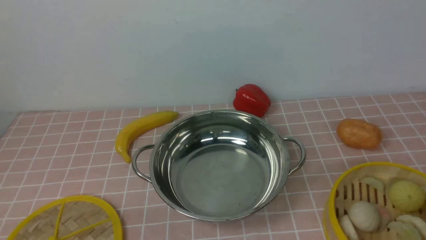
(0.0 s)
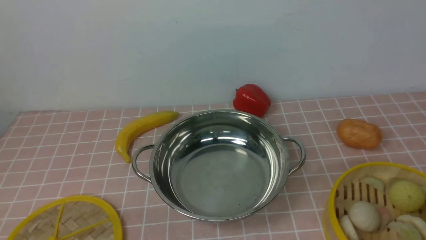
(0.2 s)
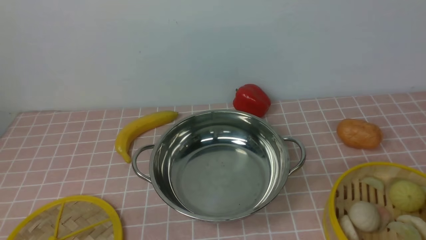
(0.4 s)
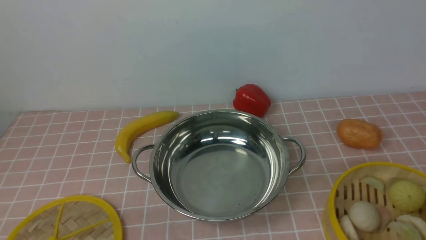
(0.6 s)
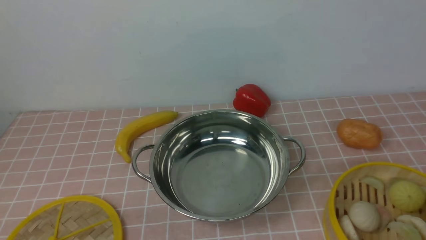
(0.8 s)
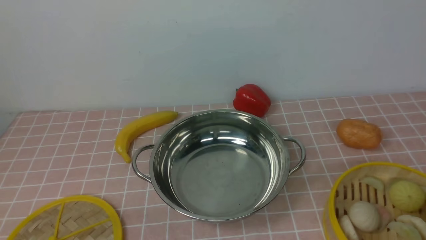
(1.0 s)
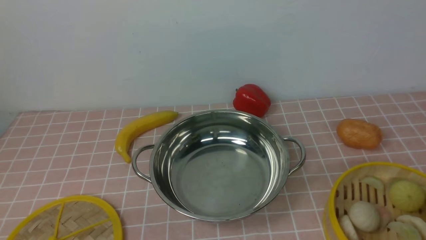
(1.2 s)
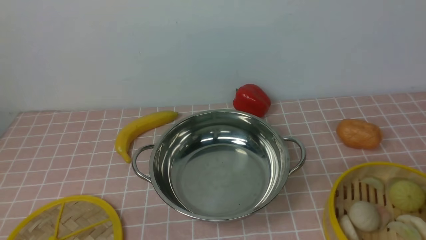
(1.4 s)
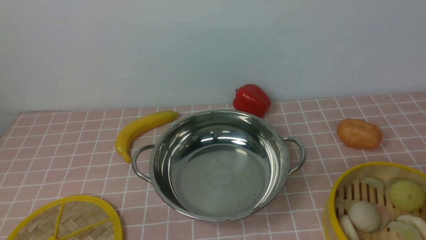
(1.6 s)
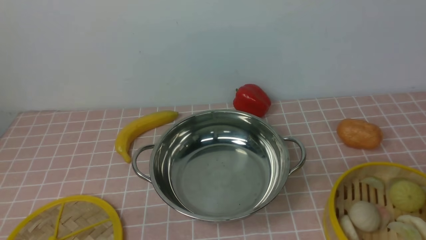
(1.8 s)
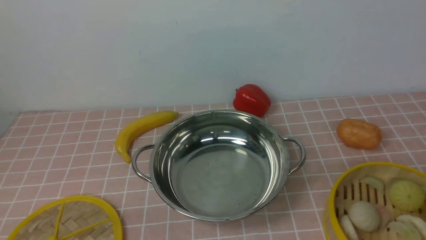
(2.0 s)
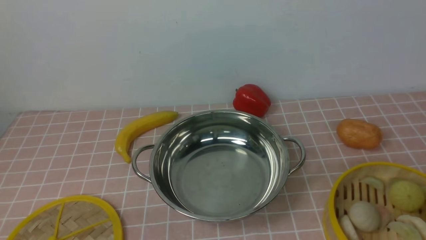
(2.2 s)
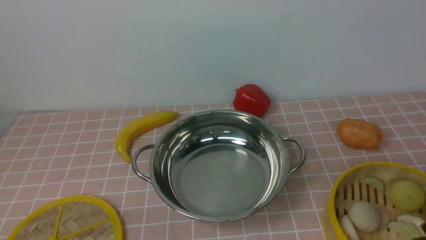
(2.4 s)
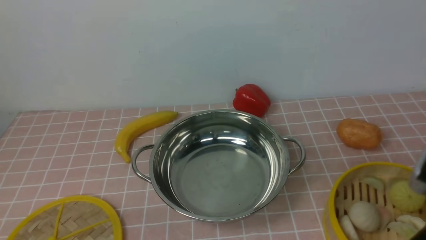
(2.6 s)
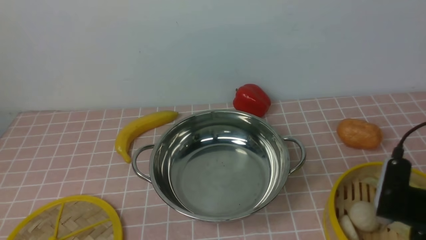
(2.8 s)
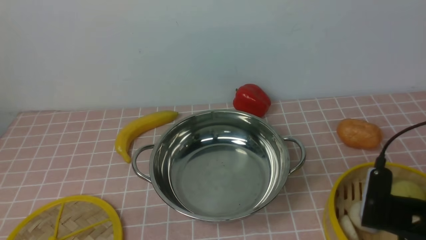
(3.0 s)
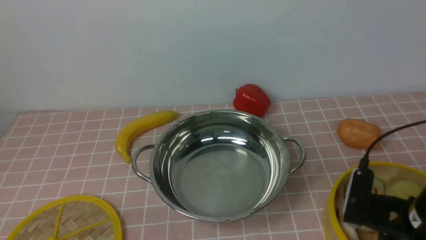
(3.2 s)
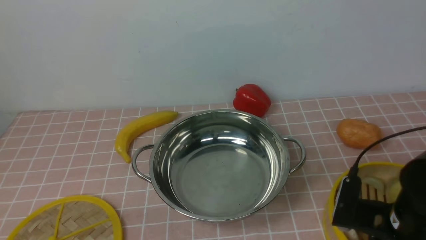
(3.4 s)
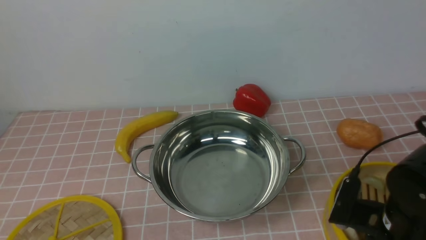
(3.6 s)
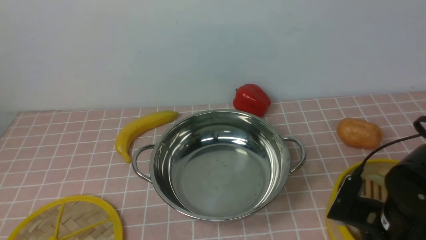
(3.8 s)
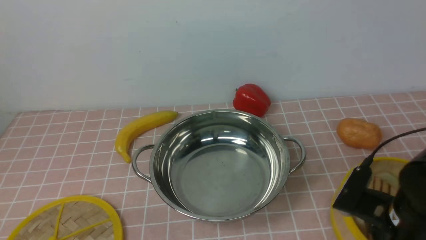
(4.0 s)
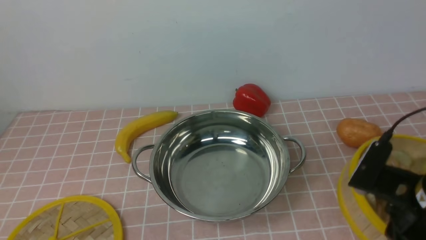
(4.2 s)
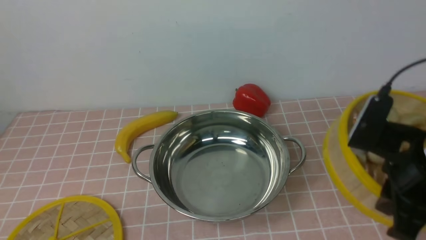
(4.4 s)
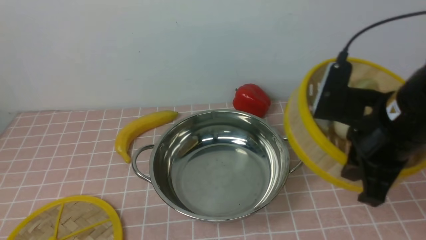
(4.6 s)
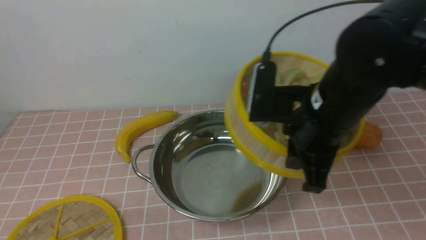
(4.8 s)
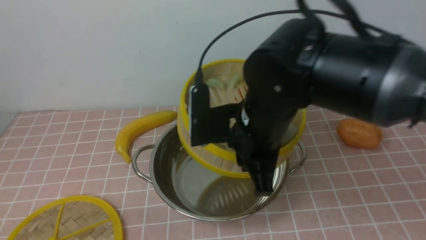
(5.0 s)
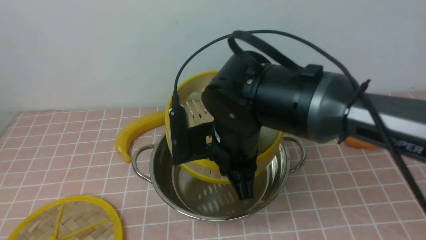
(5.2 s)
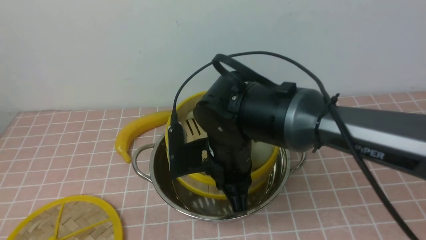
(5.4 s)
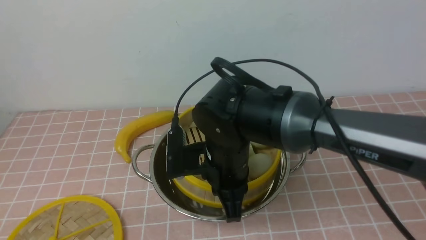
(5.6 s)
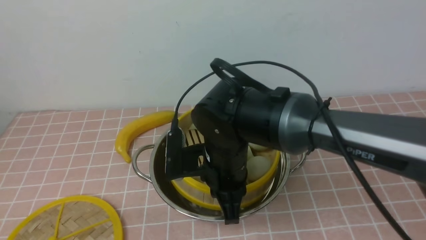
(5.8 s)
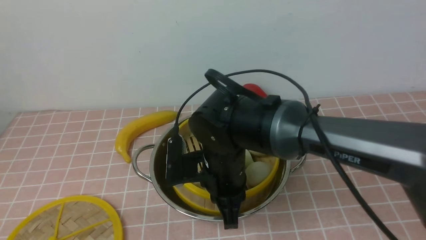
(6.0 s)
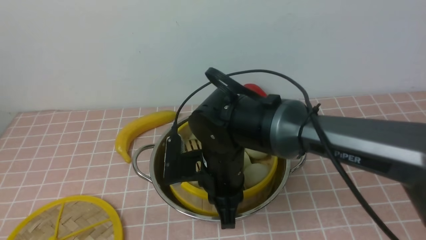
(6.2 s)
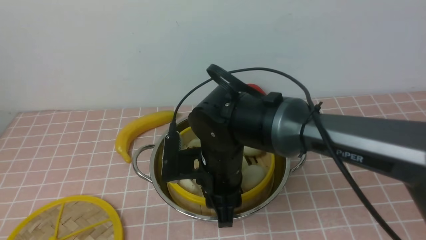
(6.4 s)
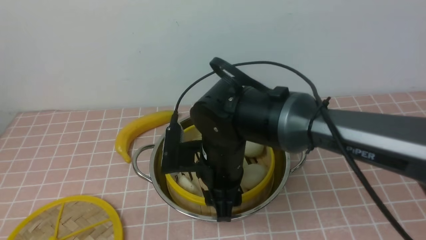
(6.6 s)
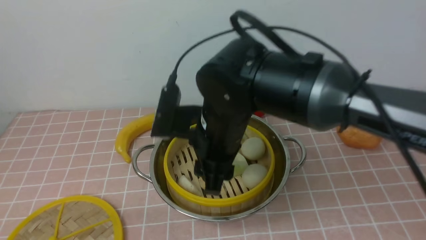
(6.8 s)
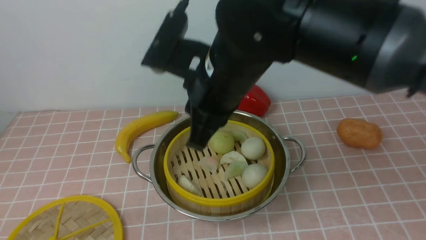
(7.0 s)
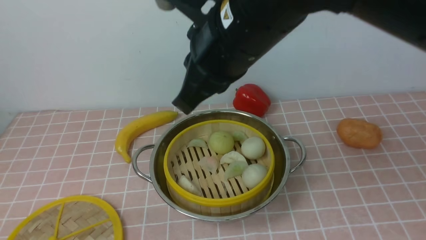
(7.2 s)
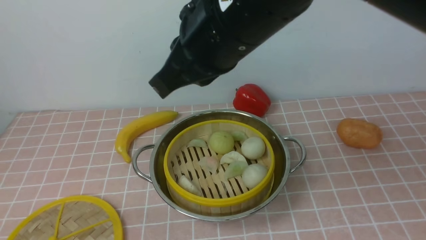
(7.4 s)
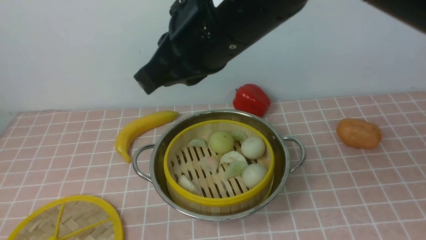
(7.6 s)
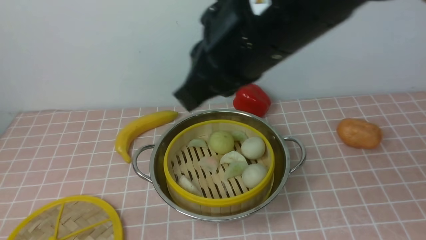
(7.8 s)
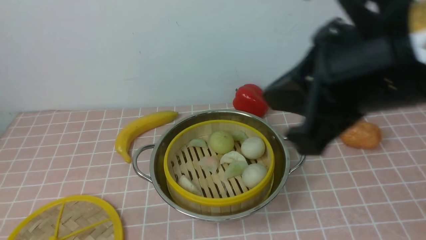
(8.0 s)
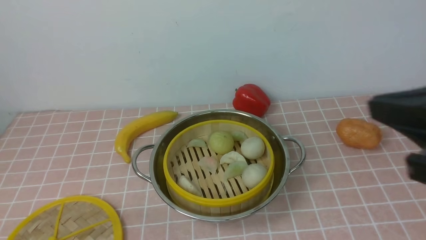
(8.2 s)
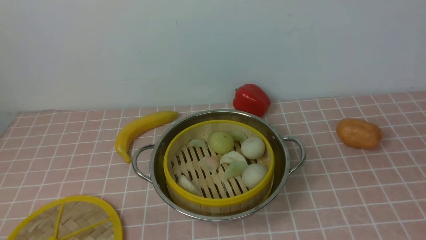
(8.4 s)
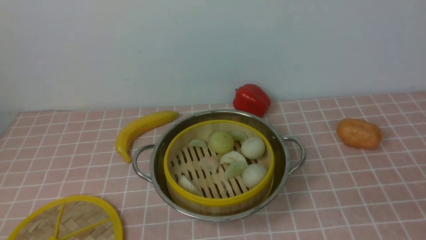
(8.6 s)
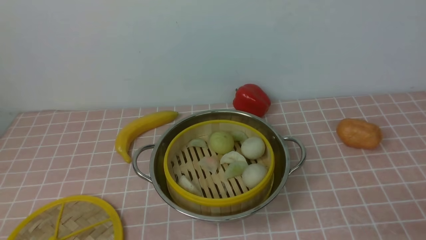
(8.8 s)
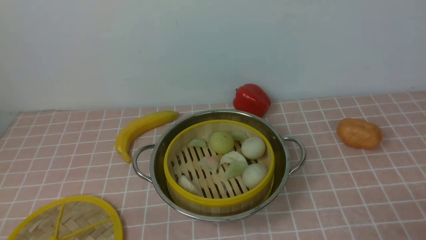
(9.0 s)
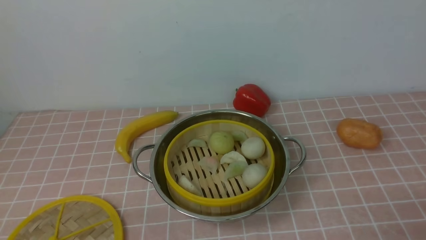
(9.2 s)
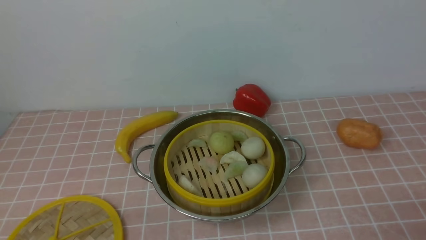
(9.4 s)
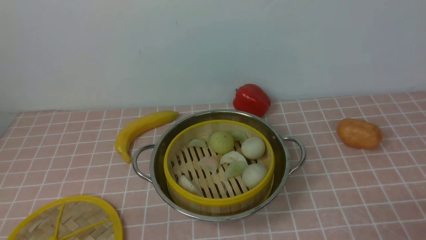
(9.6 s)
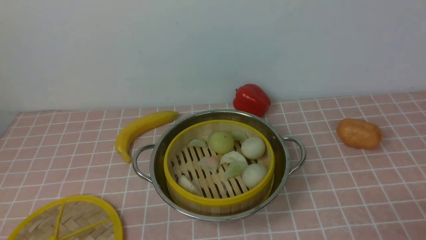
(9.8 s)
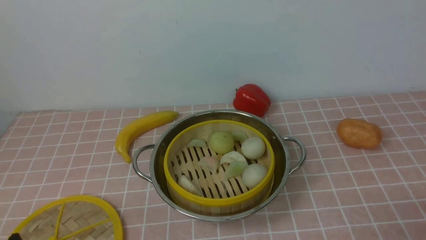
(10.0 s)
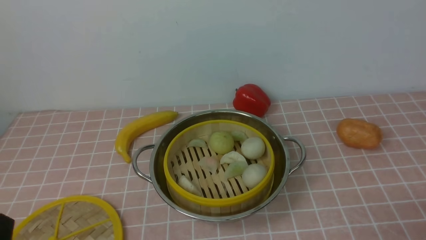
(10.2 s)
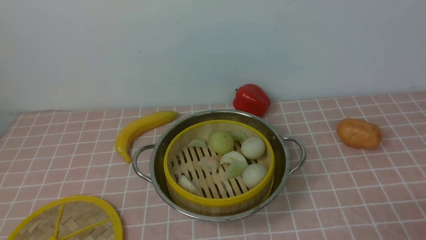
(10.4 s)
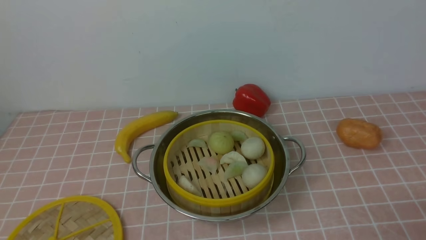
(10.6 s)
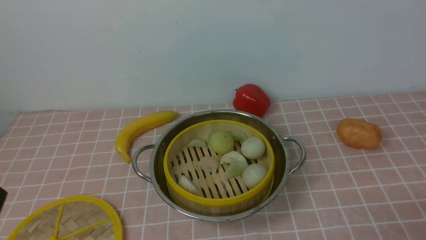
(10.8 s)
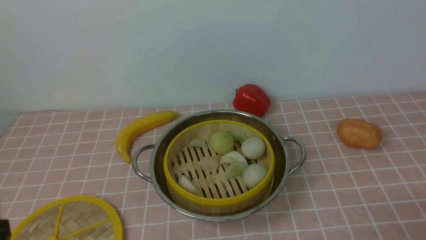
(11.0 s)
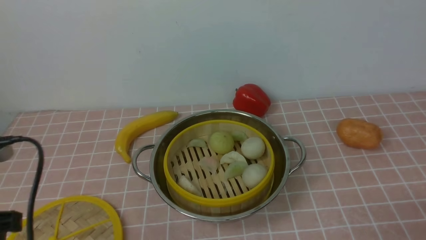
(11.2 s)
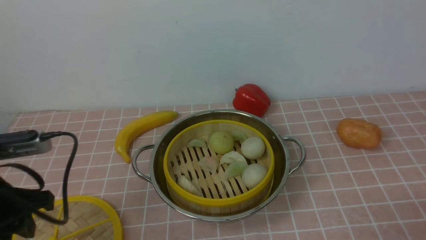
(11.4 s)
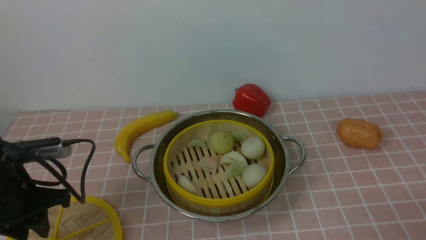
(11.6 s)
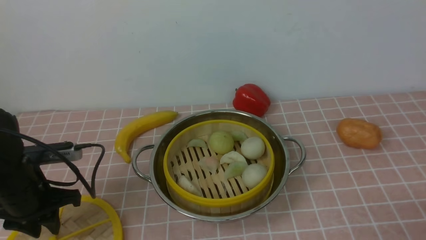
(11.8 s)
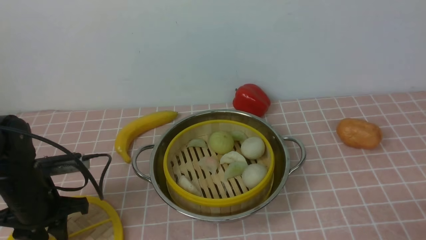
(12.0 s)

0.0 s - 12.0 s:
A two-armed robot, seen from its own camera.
Task of the whole recording: place the steamer in the pot on the pink tablecloth, and put the lid on the steamer.
Step, 0.0 s - 4.0 s: use the right arm to lift the steamer closest to it.
Step, 4.2 s - 6.6 s: use the right arm to put the steamer into the iron steamer pot in the middle.
1.6 s - 3.0 s: The right gripper goes approximately 15 cm forward, to the left and downward.
3.0 s - 4.4 s: The right gripper goes some 5 cm upward, and closes.
4.4 s - 6.0 s: The right gripper goes approximately 20 cm to the left.
6.0 s - 7.6 s: The right gripper heads upward, covering approximately 20 cm, and opens, then closes again.
7.6 s - 9.0 s: The right gripper heads to the right, downward and backward, covering some 40 cm, and opens its fingers.
10.4 s - 12.0 s: The left gripper moves forward, approximately 20 cm.

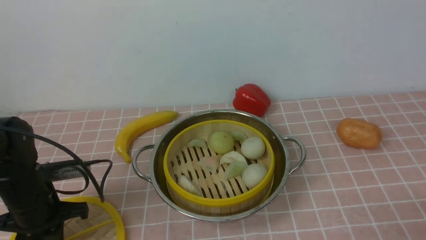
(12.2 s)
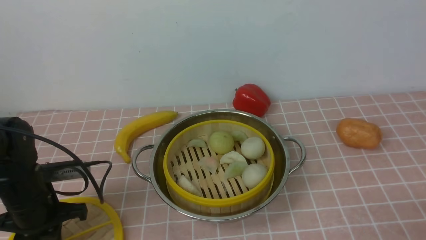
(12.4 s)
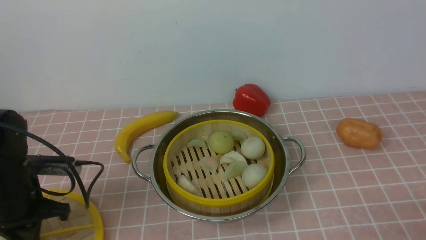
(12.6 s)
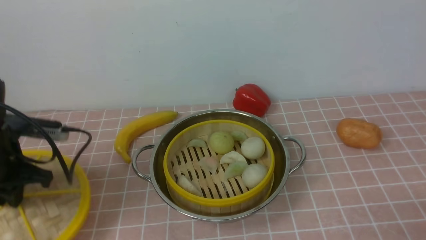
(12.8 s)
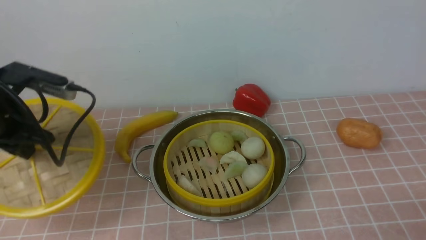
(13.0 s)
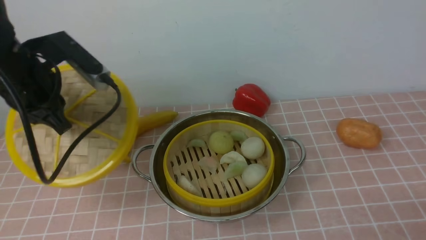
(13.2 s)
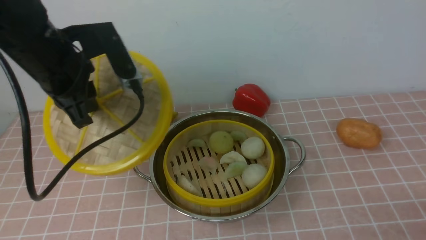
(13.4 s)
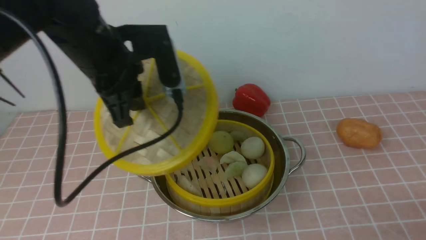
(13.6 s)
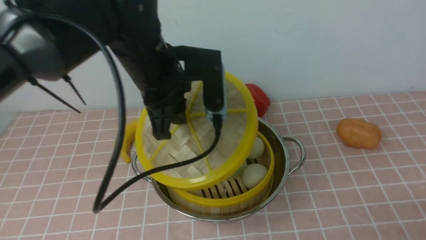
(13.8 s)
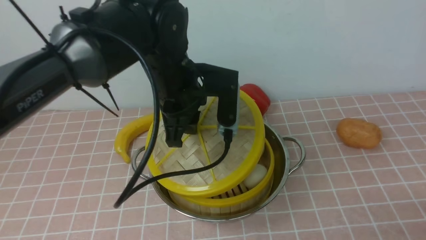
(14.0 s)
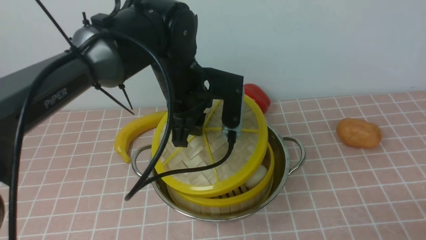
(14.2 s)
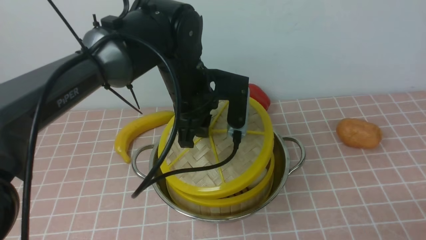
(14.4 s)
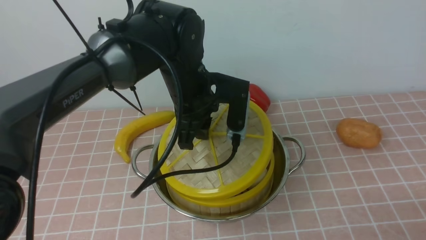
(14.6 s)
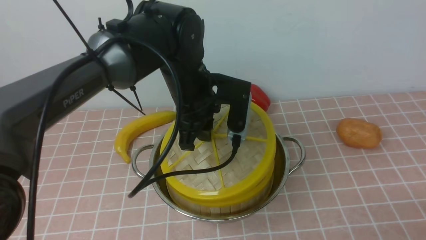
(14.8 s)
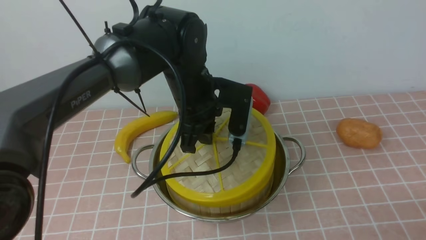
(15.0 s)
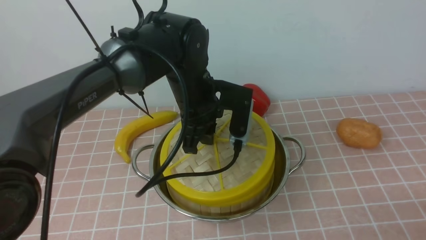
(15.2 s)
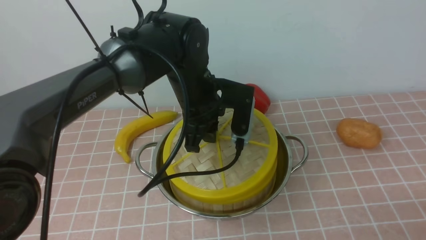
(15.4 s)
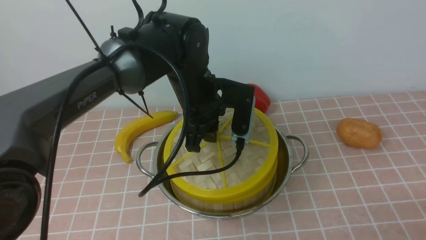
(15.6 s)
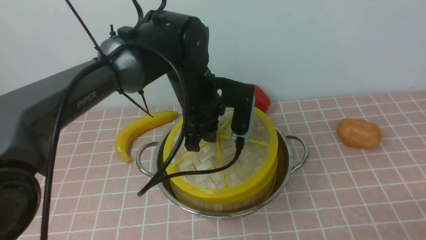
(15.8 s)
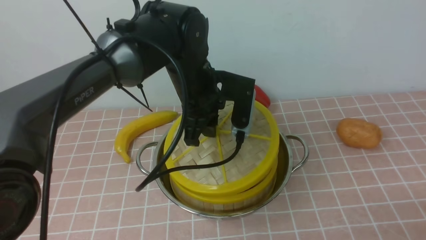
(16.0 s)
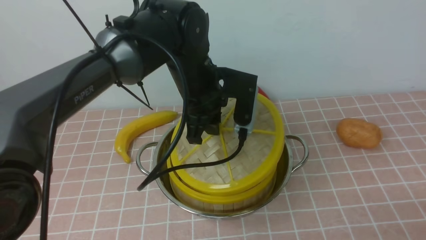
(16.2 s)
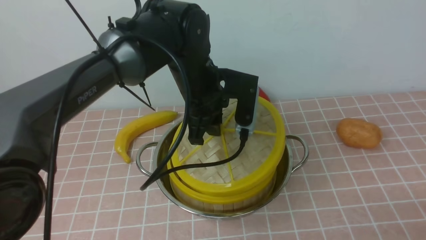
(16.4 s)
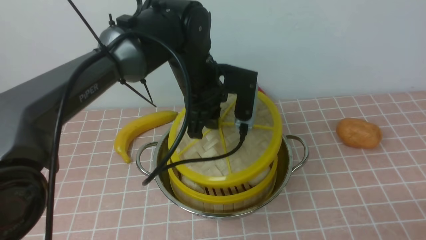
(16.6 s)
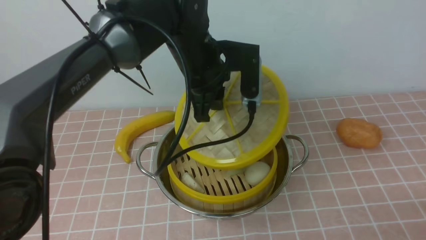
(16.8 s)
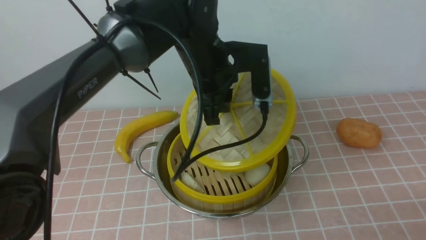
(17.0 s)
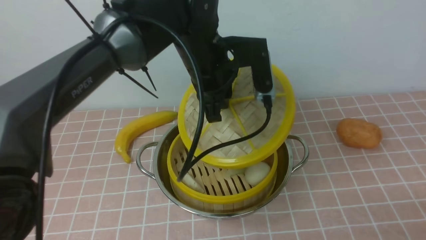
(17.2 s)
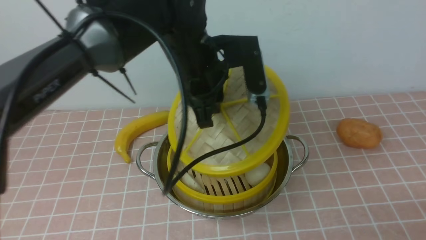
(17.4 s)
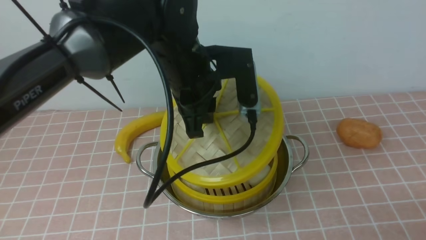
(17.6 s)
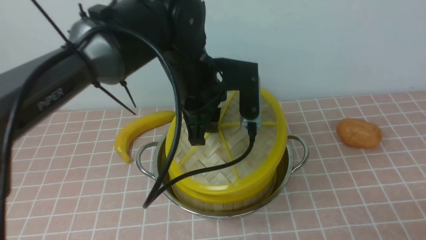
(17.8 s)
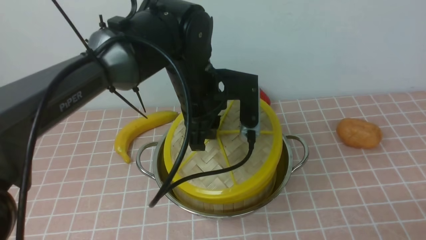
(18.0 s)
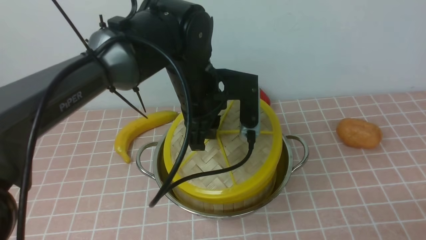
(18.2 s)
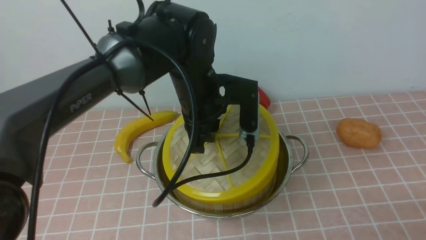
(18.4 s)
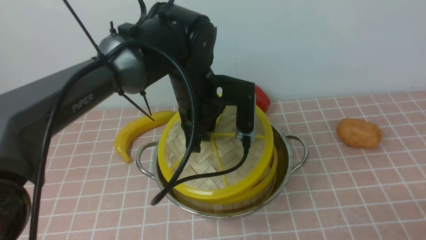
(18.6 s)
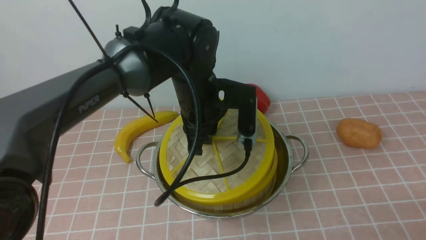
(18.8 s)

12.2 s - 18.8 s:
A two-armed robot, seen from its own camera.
Task of the whole recording: place the steamer in the pot on the pink tablecloth, and put the lid on the steamer.
12.2 s - 13.8 s: The left gripper moves to the right and upward, approximately 25 cm.
13.8 s - 15.4 s: The left gripper goes roughly 10 cm downward and to the right.
15.4 s - 17.2 s: The left gripper shifts roughly 5 cm upward.
17.2 s - 18.8 s: The left gripper heads downward, covering some 5 cm.
